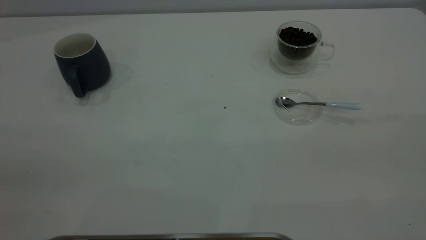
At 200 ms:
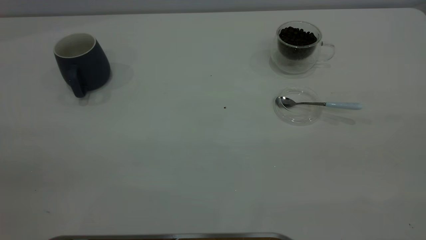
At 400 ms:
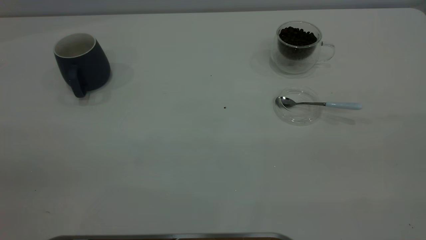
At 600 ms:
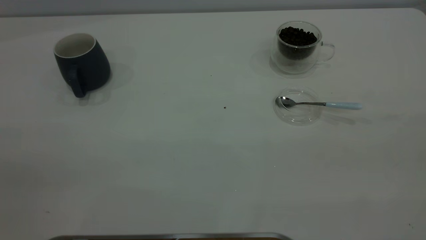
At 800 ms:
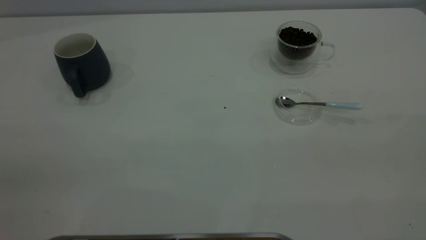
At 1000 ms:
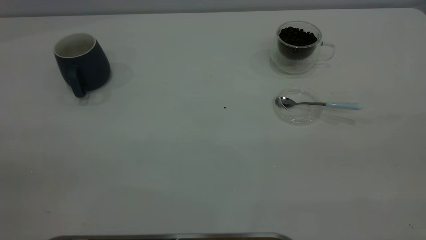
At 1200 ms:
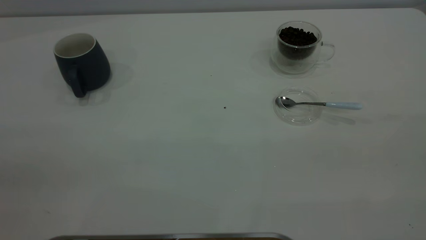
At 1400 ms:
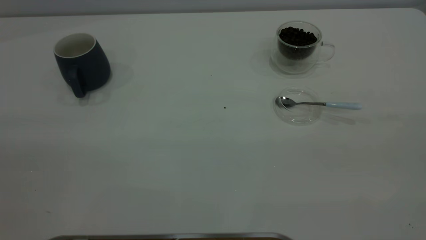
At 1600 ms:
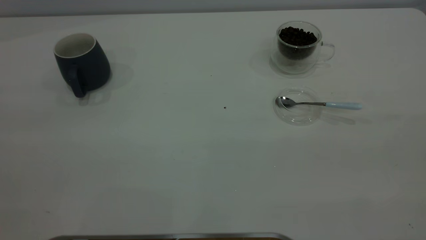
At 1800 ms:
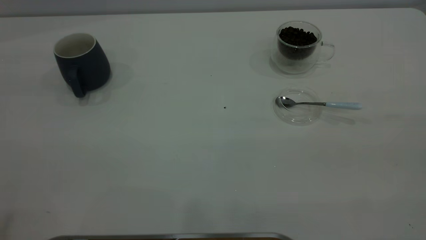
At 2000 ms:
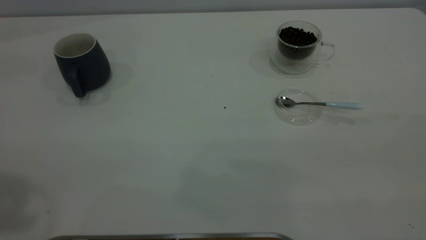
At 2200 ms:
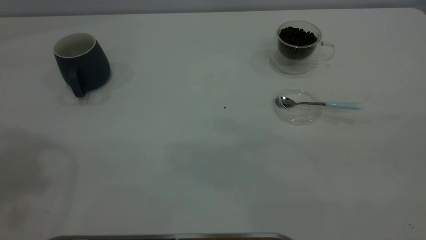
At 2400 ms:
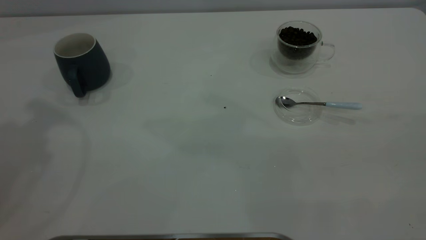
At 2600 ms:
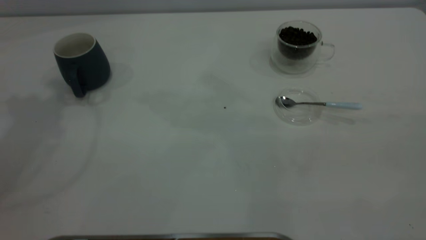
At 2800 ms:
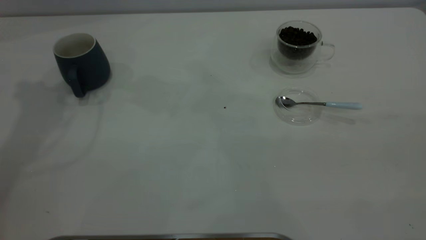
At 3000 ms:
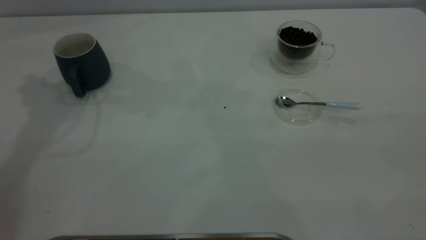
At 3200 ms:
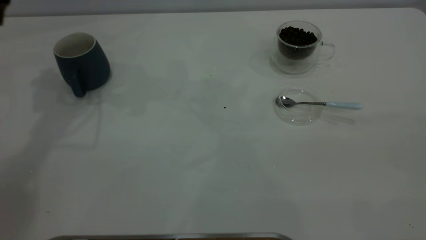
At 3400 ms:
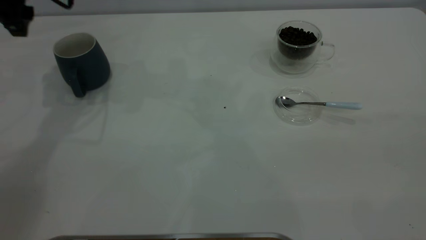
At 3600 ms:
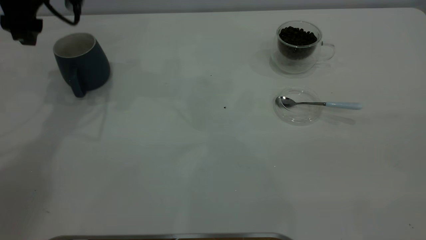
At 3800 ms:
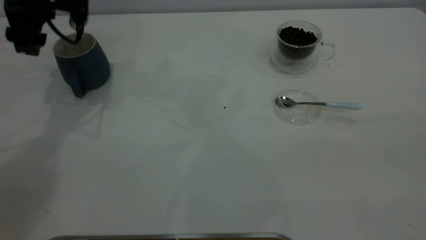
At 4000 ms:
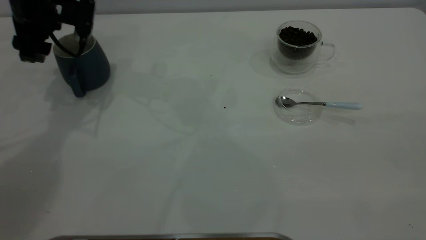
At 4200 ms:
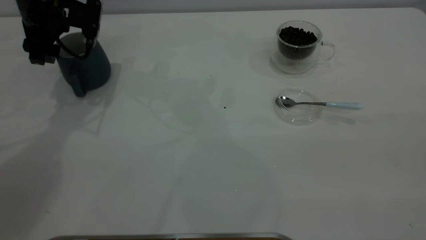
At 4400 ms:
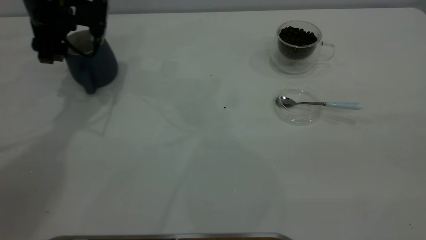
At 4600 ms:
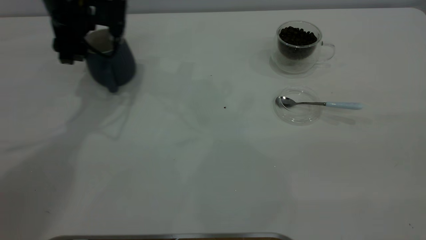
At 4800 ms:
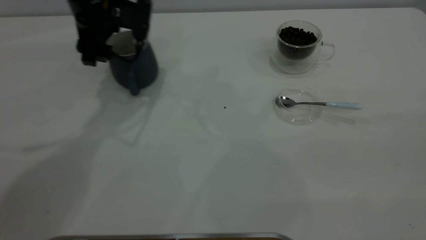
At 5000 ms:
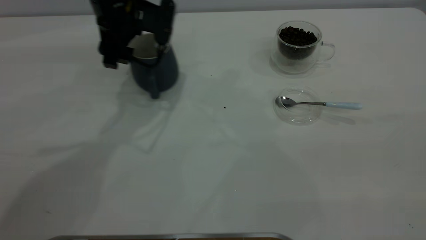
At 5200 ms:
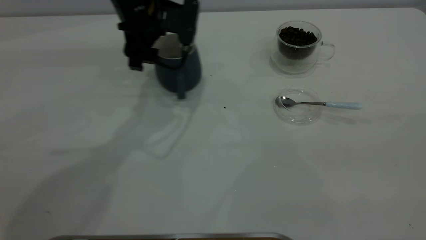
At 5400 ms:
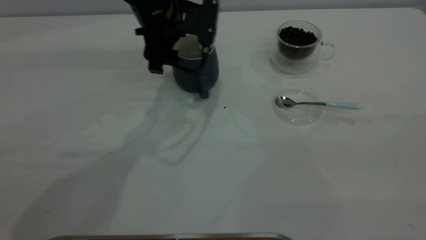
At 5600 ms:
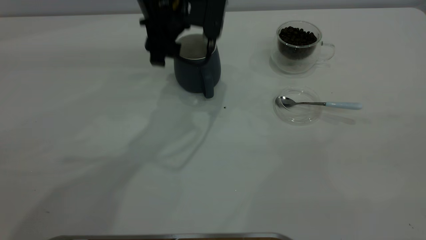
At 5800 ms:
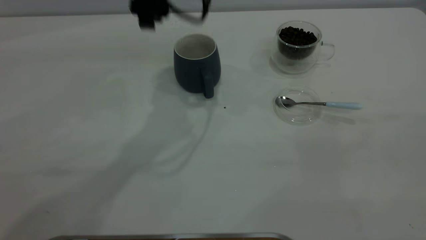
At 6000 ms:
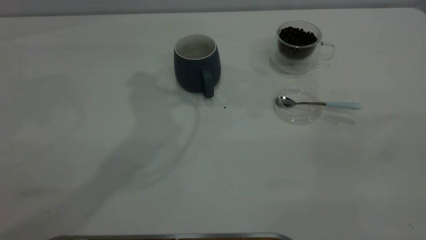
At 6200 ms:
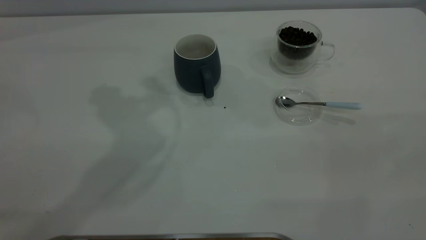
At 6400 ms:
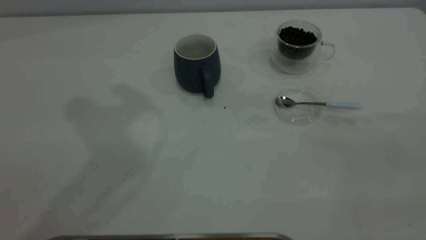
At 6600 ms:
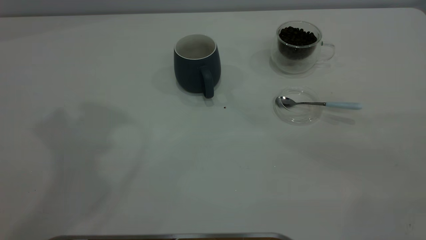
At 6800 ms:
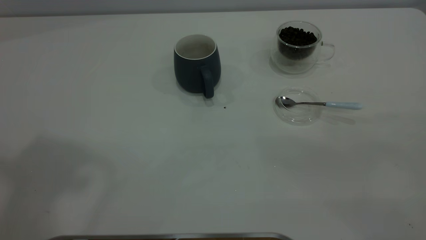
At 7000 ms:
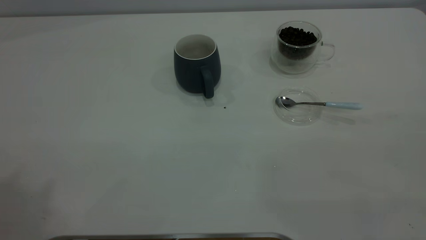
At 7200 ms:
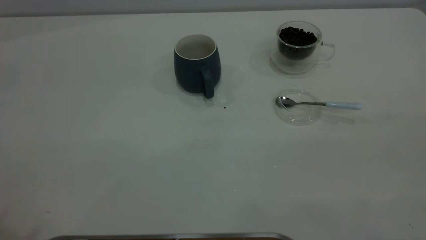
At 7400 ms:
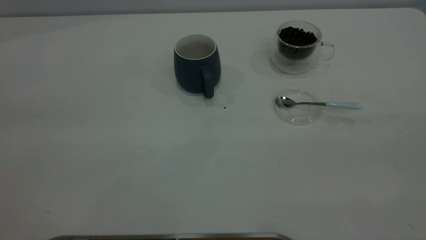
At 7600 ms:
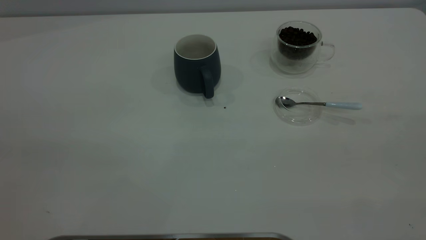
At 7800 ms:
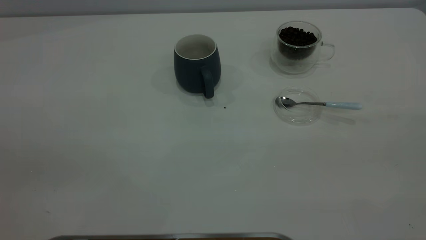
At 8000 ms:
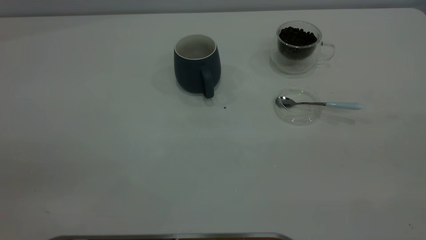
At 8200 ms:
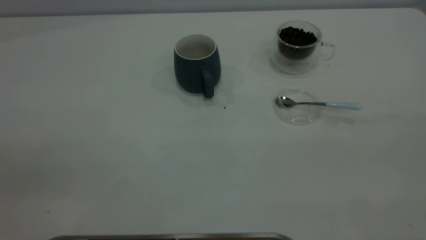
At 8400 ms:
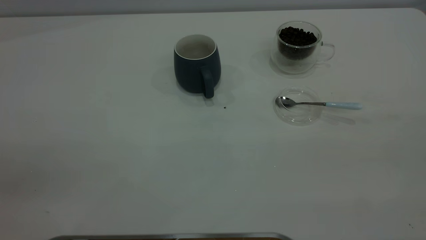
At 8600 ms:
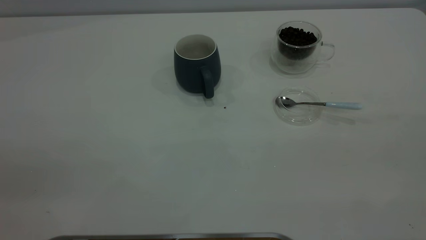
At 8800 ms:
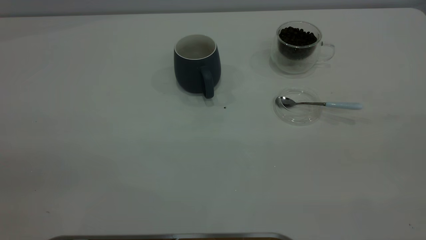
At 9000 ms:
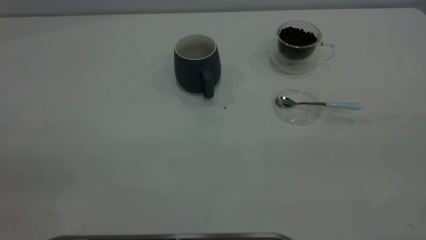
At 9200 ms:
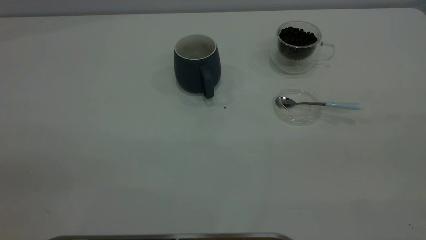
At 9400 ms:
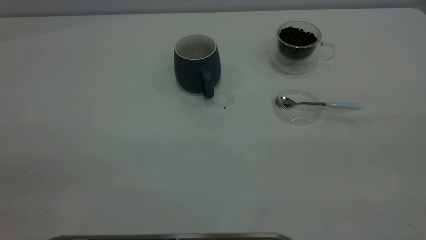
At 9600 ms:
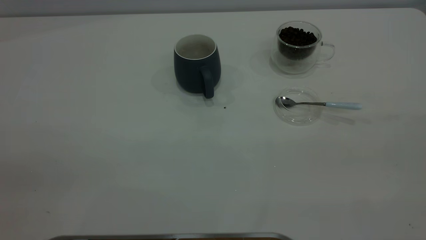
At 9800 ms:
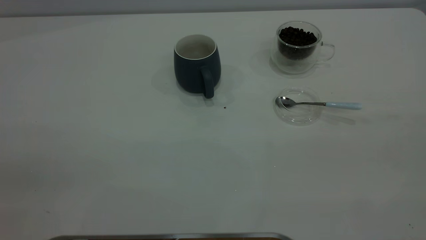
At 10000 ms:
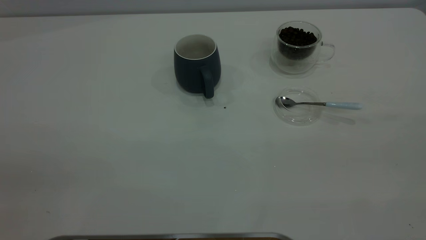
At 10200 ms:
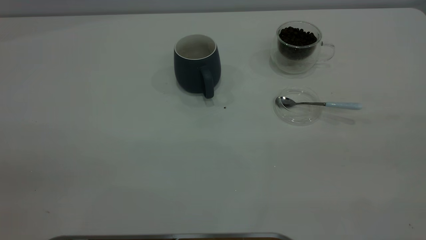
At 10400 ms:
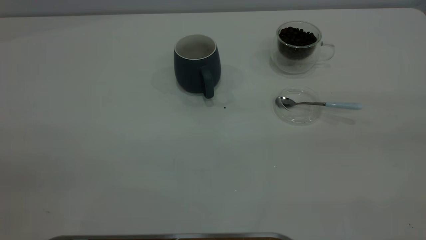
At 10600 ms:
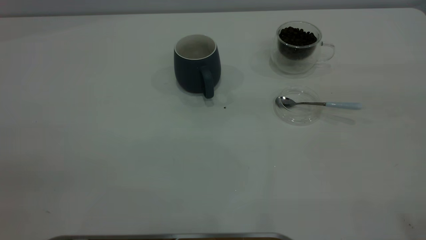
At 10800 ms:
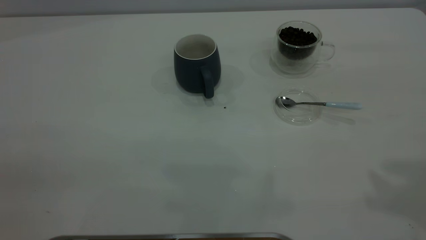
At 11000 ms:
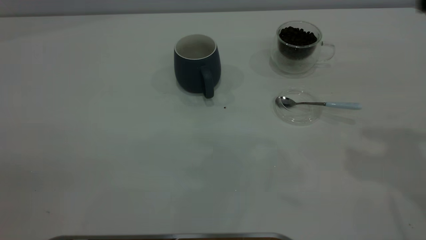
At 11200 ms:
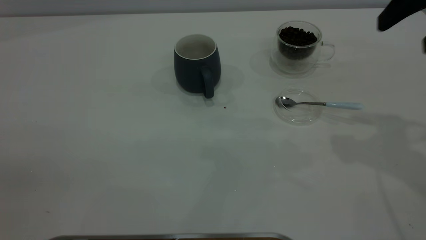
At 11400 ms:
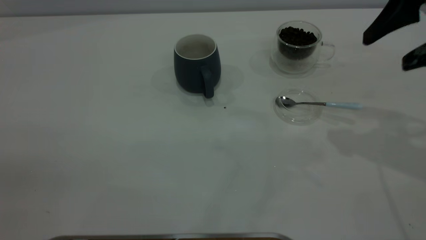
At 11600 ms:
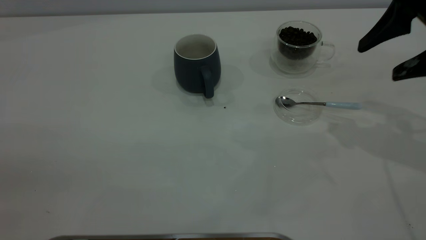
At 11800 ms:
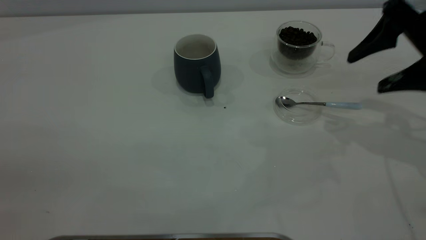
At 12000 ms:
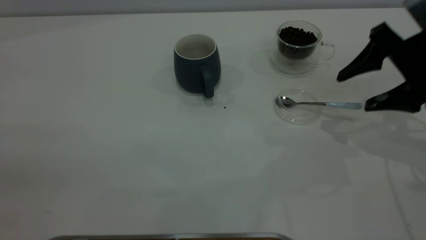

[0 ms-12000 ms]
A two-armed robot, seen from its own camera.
Task of the whole recording: the left gripper place the grey cup in the center of the table, the right gripper take the blue spoon from the cup lid and scoop out the coffee beans from the coffee cup and put them into the grey cup, the right gripper put the spoon back into the cup lid.
Step, 0 ms to 5600 ms: Move the cup to the center of view.
3000 ms to 4400 ms: The left gripper travels downward by about 15 cm.
4400 ms to 6000 ms: The left gripper moves upward, to the right and backward, about 25 cm.
10400 ms to 12000 ms: The right gripper is displaced forward and downward by about 35 cm.

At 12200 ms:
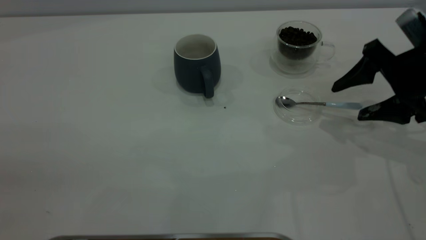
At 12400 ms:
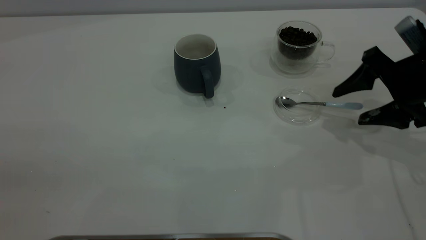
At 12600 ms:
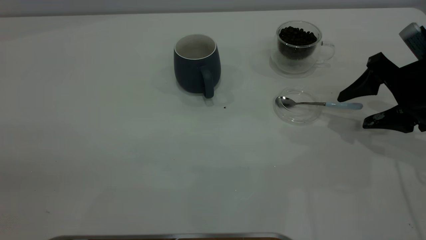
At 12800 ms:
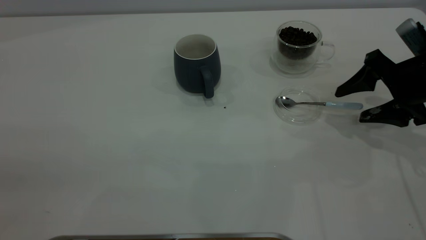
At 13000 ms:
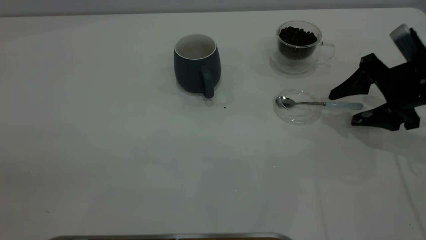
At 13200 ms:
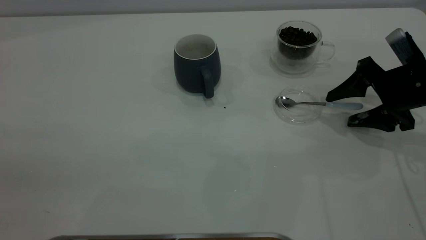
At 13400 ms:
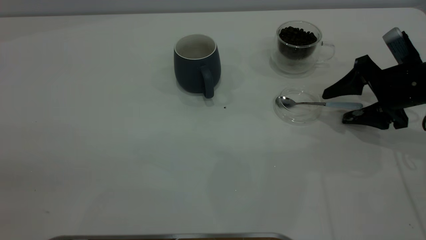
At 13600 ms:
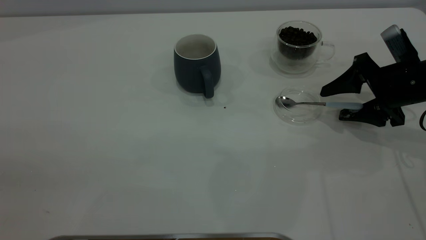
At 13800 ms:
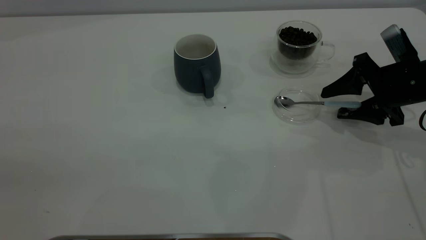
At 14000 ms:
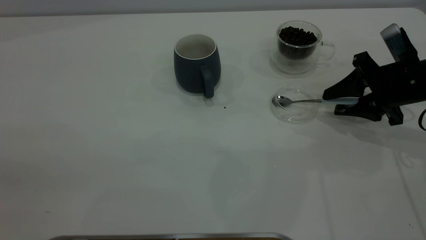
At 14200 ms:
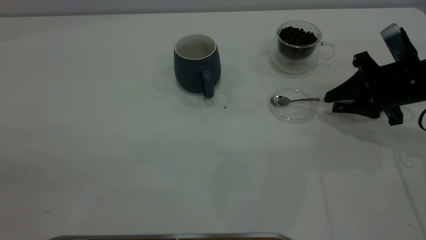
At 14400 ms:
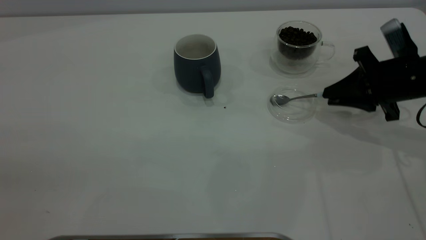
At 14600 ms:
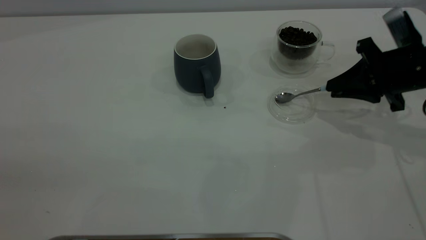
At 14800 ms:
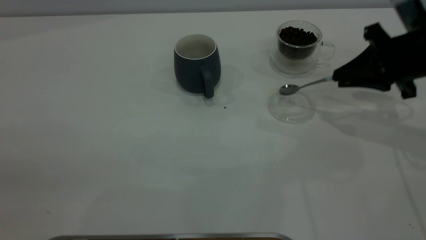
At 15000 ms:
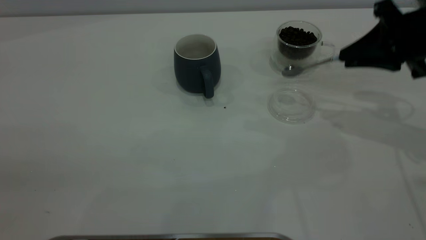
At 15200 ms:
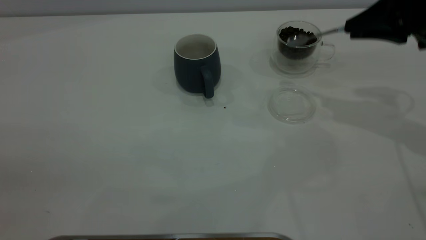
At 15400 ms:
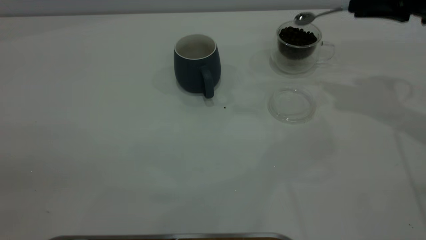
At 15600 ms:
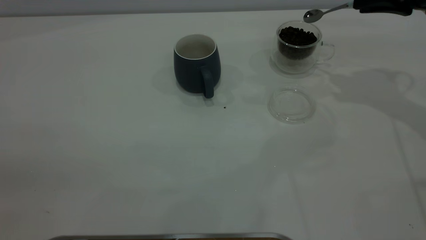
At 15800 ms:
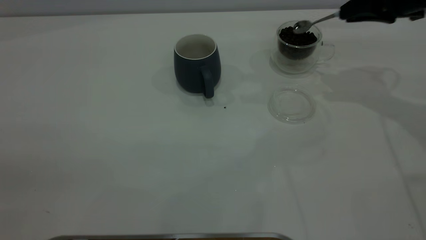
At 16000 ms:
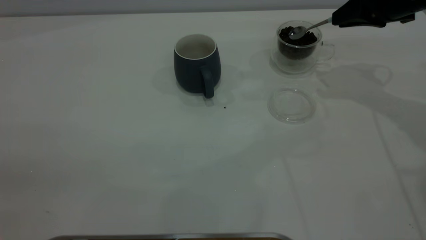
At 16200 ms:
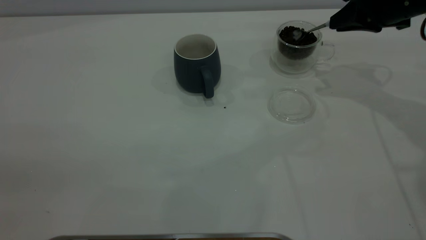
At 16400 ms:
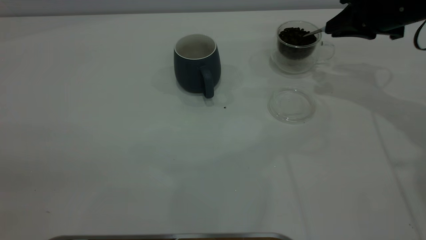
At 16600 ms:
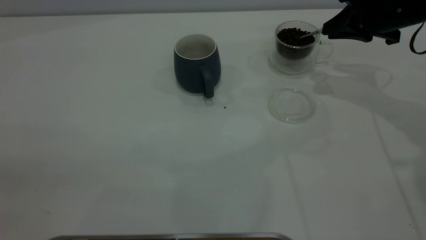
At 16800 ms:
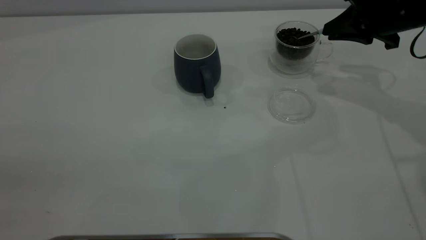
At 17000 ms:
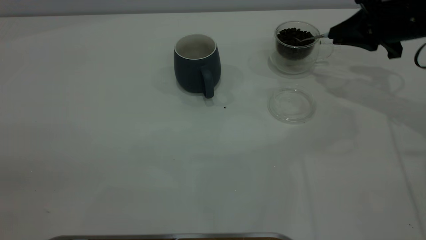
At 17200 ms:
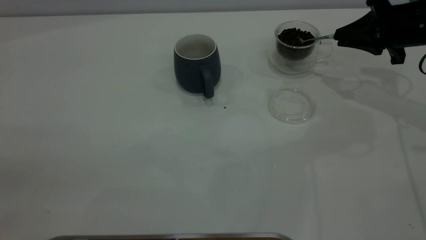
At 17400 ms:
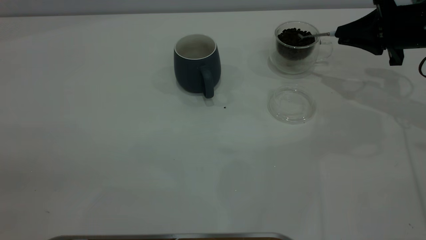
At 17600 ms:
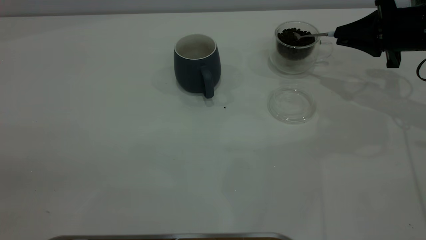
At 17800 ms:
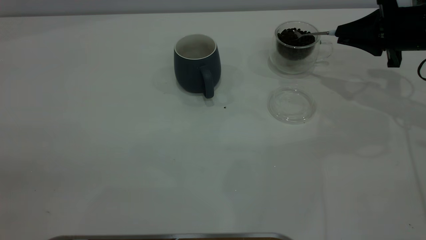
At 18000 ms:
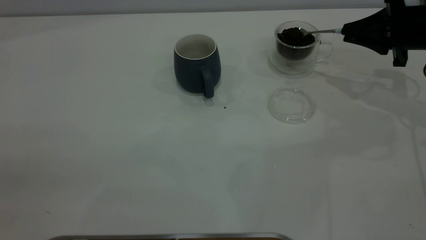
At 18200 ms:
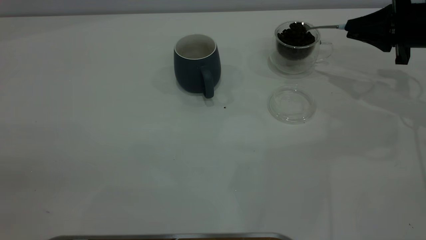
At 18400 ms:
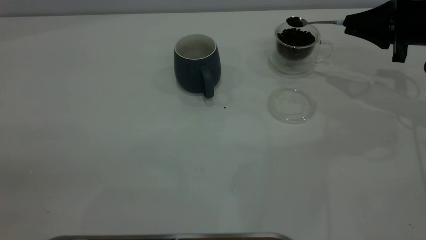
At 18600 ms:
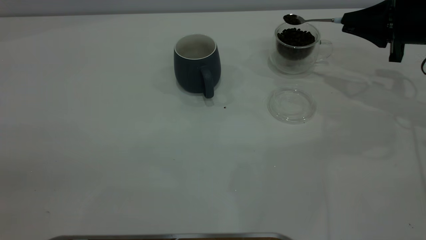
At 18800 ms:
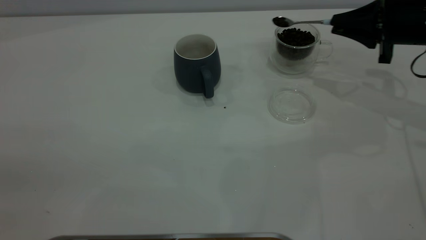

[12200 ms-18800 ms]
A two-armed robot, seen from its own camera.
Task of the whole recording: the left gripper place the grey cup in the center of the table, the right gripper take the blue spoon from the cup lid and scoop out the coffee beans from the coffee cup and put them into the grey cup, the right gripper put the spoon back into the cup lid.
Step, 12200 ms to 15000 ms: Pick up the spoon.
12200 ms to 13800 ms: The right gripper changes place by about 5 cm.
13800 ms to 15400 ms: The right gripper is displaced upward by about 15 cm, and closes its fingers.
15400 ms to 17200 ms: The right gripper heads downward, covering approximately 10 cm.
17200 ms to 18800 ms: The grippers make only small movements.
